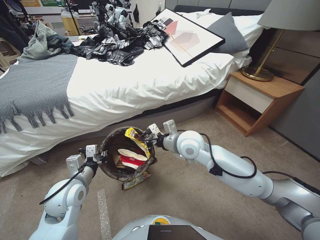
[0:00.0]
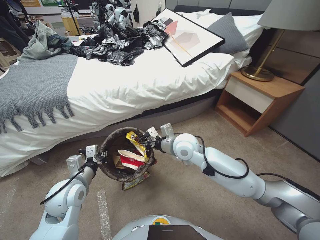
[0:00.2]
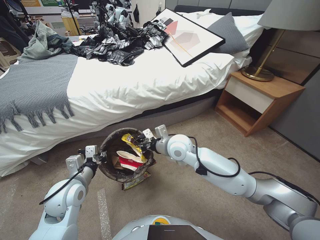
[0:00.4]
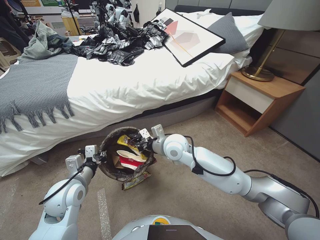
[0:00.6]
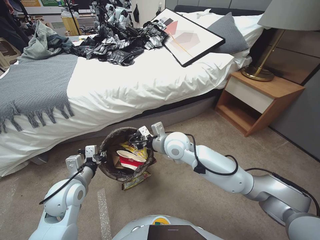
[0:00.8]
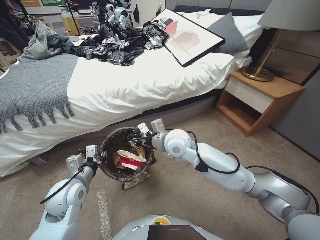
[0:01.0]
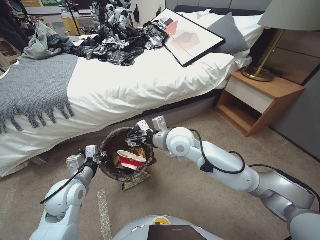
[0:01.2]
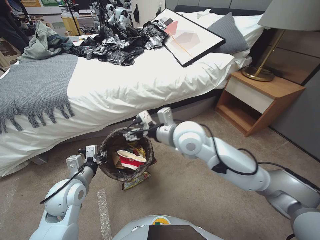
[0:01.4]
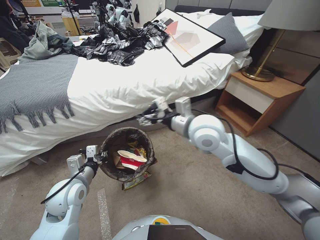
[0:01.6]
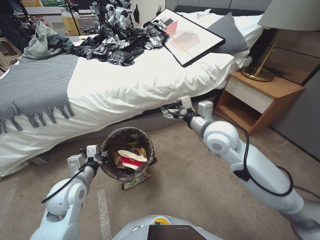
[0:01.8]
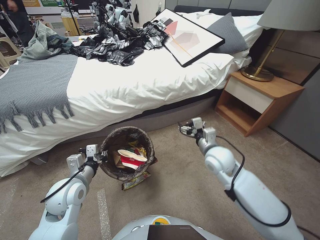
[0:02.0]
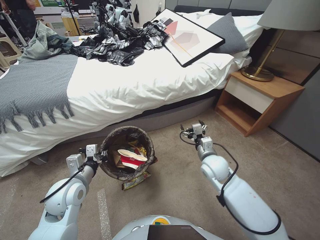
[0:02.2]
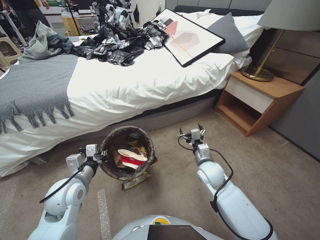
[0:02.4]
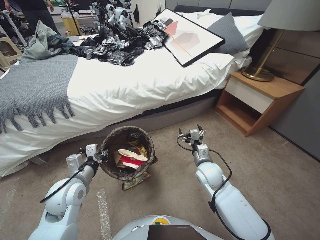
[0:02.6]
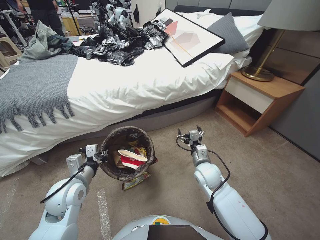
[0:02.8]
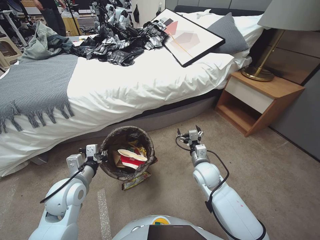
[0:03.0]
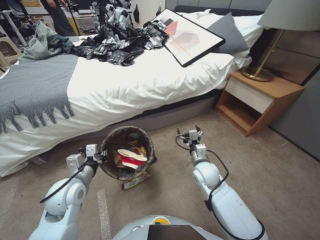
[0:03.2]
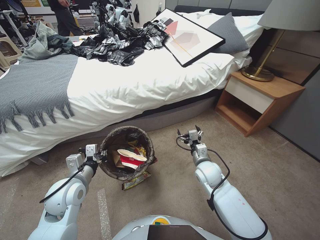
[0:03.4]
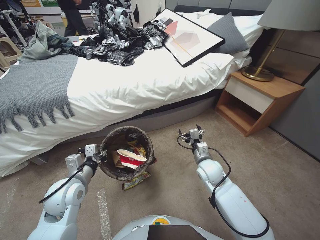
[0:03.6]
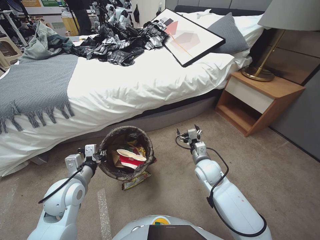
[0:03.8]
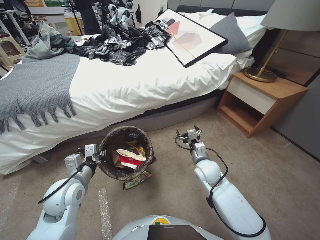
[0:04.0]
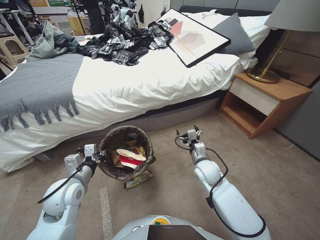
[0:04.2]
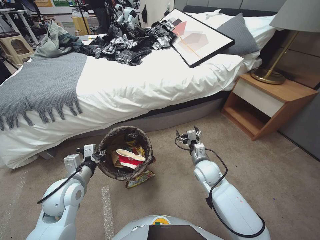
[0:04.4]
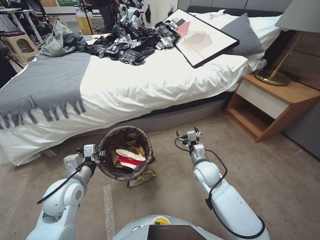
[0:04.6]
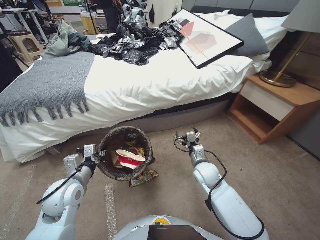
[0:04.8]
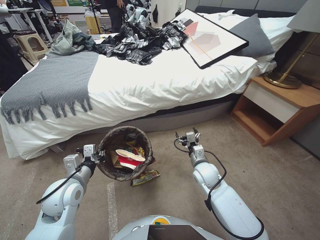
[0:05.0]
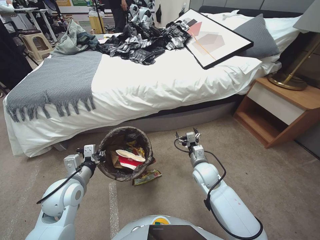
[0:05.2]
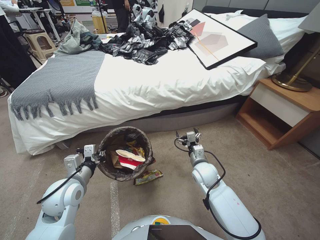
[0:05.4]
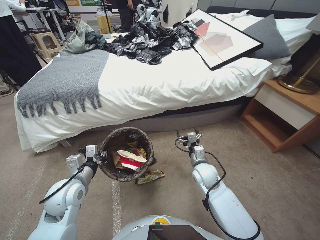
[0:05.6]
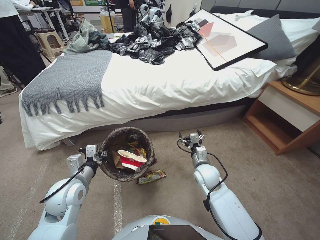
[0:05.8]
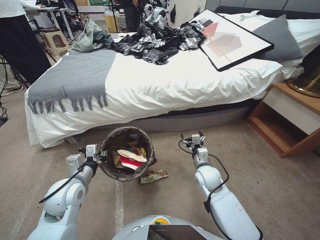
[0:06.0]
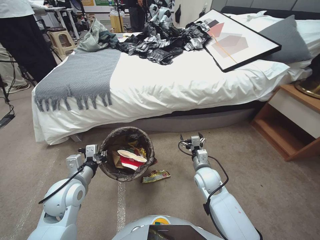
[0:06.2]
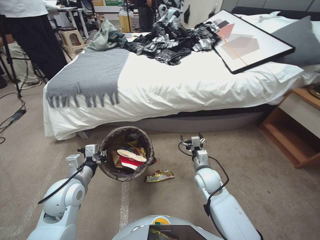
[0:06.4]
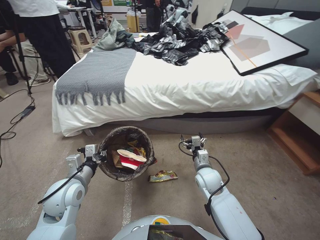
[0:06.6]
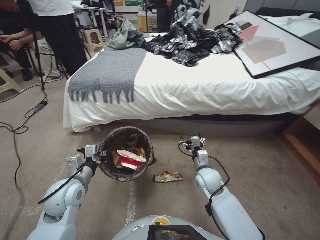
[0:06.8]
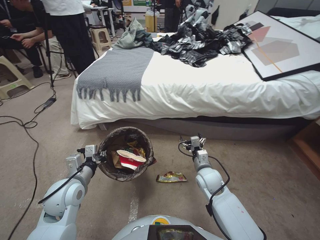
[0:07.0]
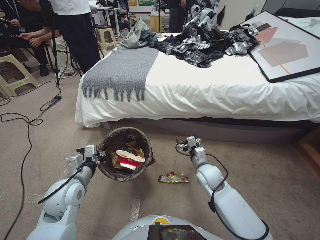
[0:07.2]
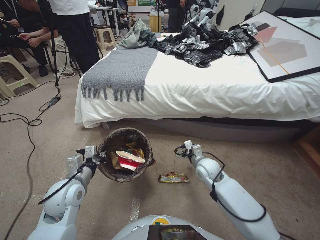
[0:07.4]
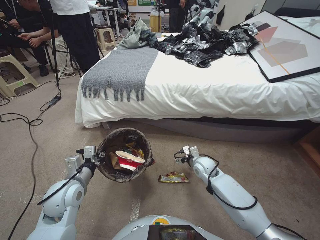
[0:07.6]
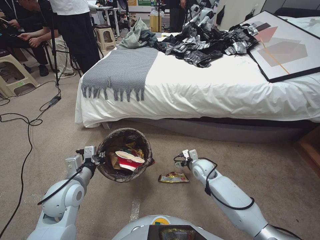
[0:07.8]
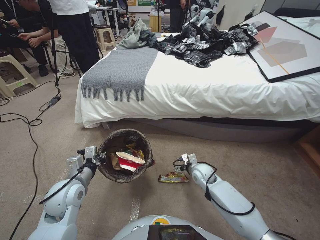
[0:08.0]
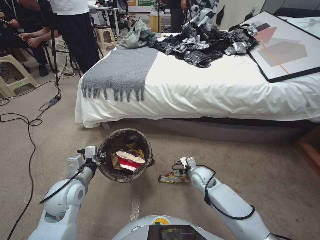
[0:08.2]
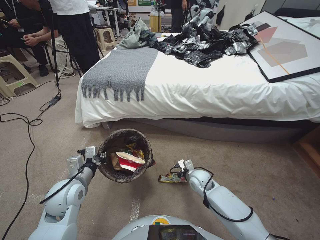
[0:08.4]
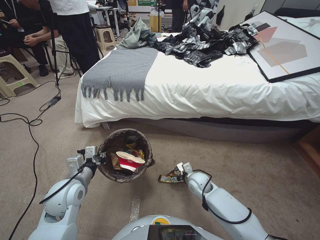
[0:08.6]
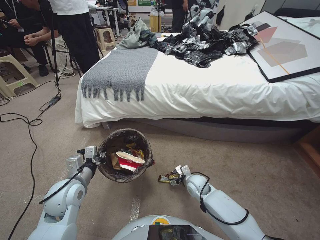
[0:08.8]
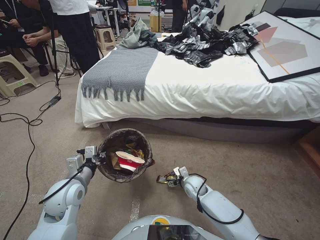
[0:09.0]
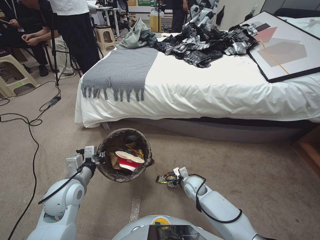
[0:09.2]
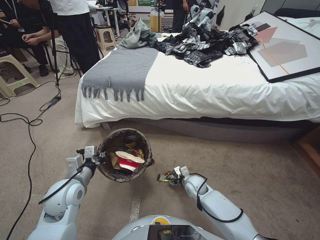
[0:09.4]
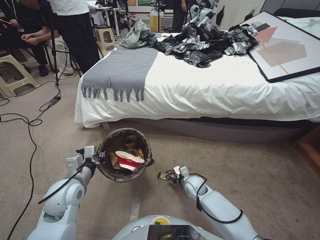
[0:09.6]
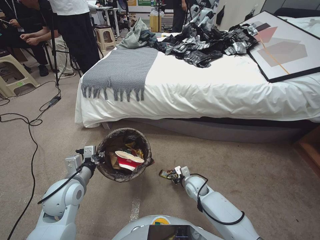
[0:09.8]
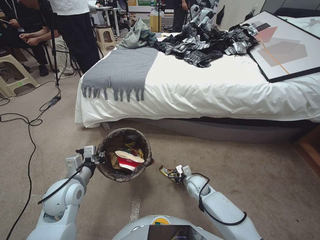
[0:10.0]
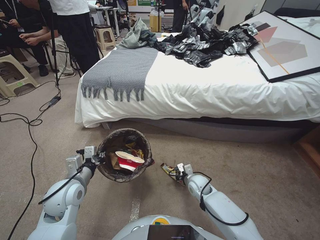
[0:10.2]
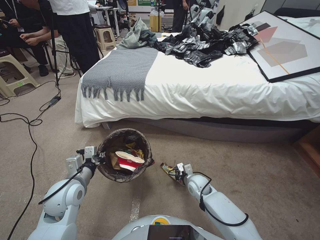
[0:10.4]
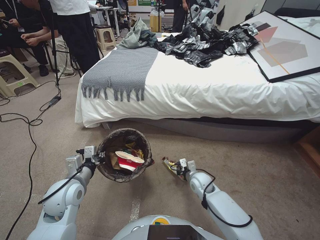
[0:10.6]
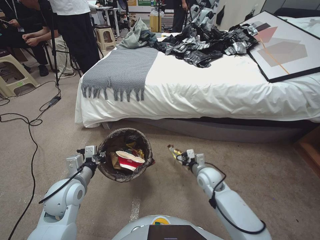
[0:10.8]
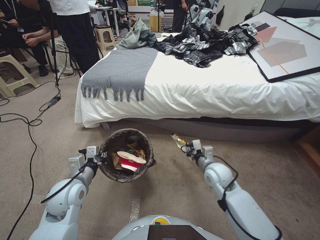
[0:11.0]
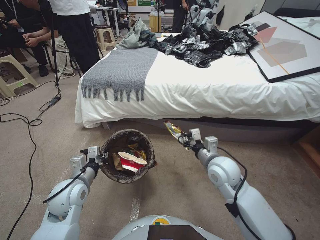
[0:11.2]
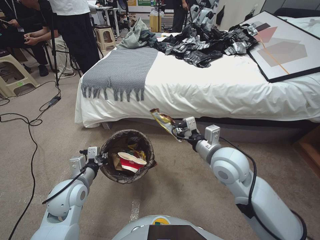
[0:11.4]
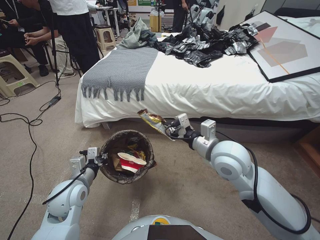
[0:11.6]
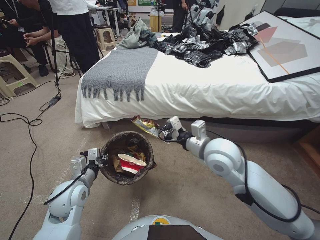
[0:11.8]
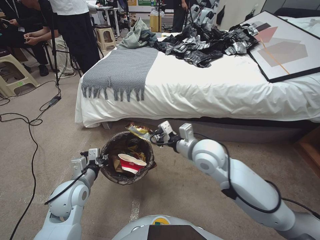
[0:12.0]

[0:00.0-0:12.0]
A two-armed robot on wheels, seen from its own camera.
Task of the whole recording: Pick up the trash bin, then pick up the garbage from the floor and place it into the trash bin.
0:00.0 to 0:01.6: The right gripper goes some 5 cm upward, and opens.
0:01.6 to 0:03.0: The right gripper heads downward, covering roughly 25 cm.
0:06.0 to 0:07.6: The right gripper changes place by some 5 cm.
0:07.6 to 0:09.0: The right gripper goes some 10 cm downward.
0:09.0 to 0:10.4: The right gripper closes up.
0:10.4 to 0:12.0: The right gripper is displaced upward by about 30 cm.

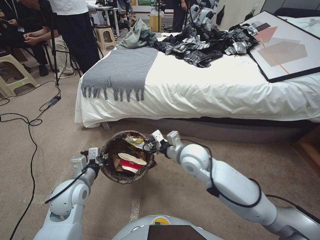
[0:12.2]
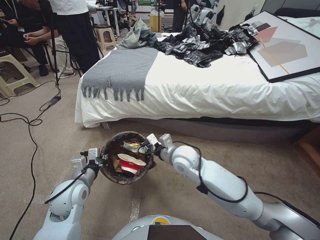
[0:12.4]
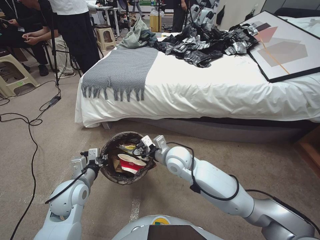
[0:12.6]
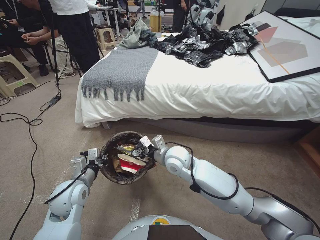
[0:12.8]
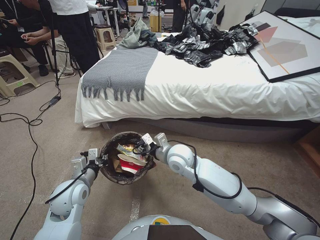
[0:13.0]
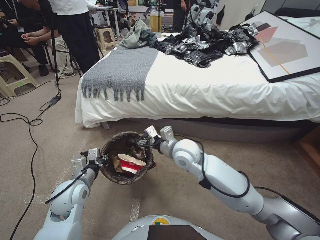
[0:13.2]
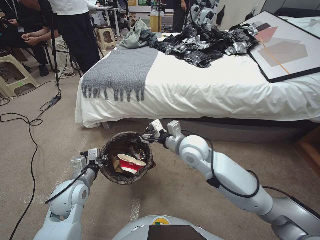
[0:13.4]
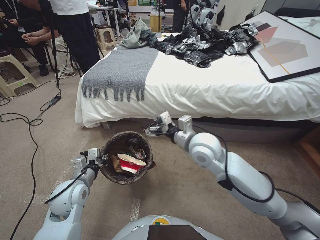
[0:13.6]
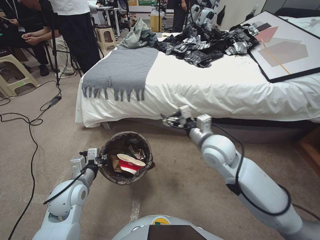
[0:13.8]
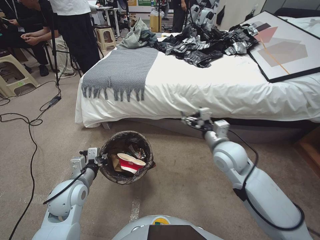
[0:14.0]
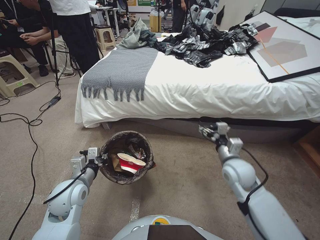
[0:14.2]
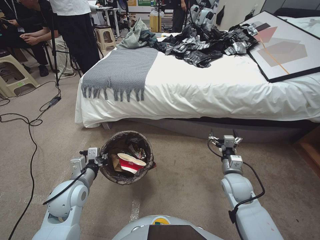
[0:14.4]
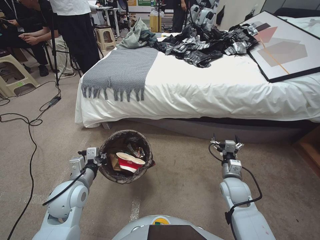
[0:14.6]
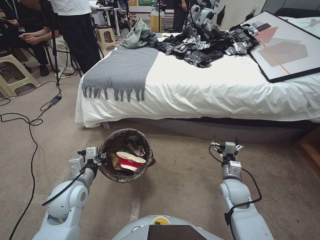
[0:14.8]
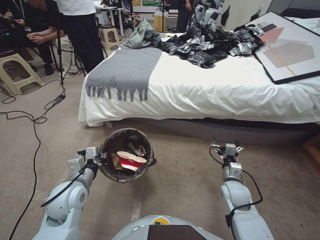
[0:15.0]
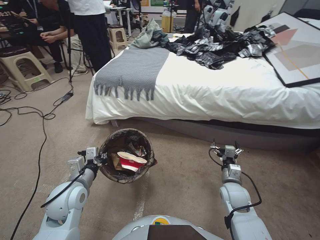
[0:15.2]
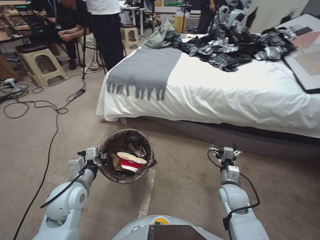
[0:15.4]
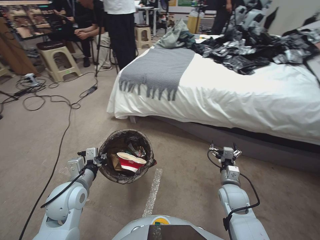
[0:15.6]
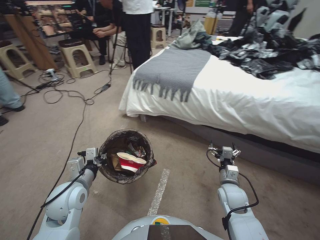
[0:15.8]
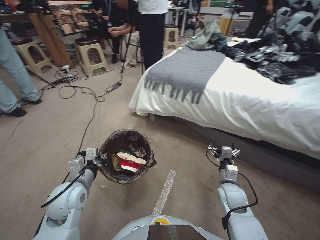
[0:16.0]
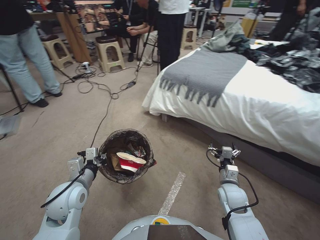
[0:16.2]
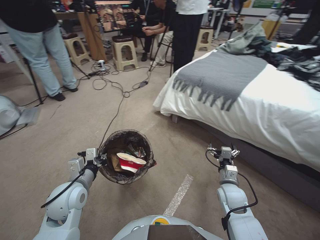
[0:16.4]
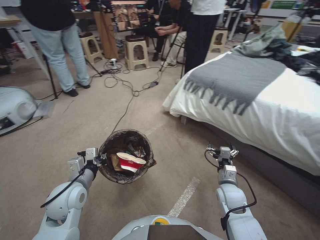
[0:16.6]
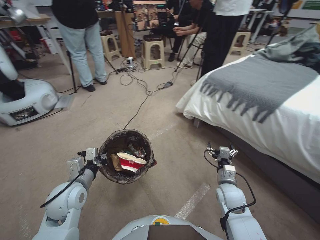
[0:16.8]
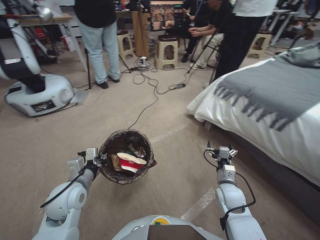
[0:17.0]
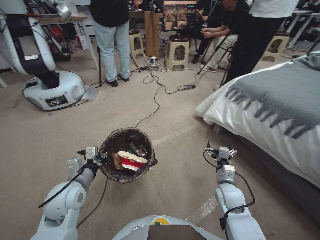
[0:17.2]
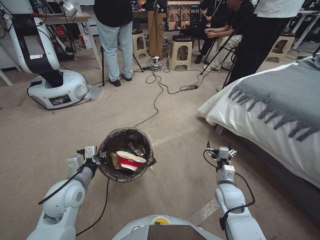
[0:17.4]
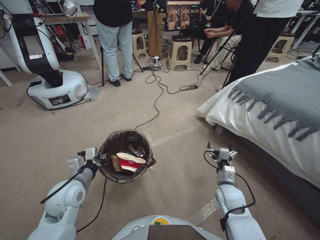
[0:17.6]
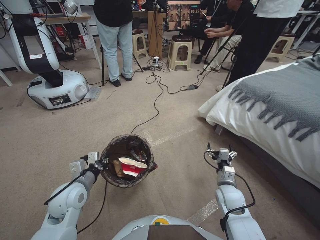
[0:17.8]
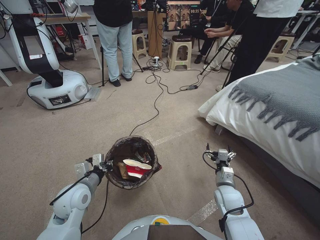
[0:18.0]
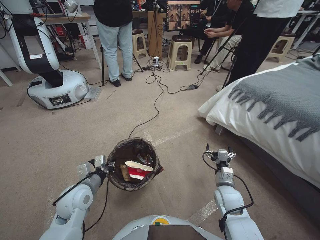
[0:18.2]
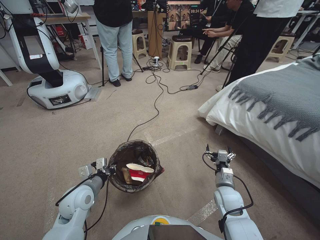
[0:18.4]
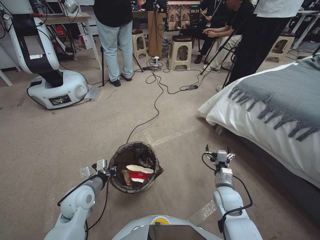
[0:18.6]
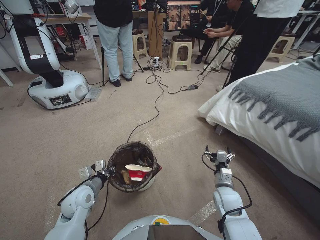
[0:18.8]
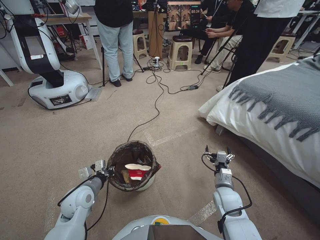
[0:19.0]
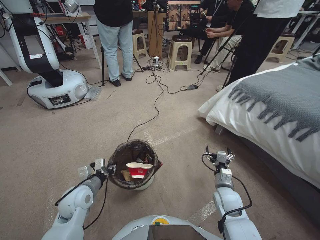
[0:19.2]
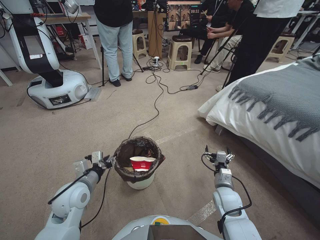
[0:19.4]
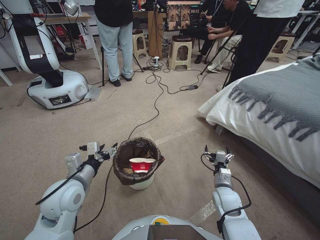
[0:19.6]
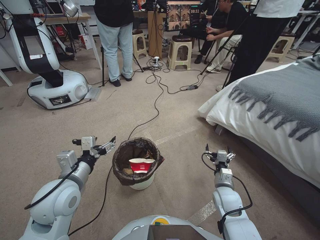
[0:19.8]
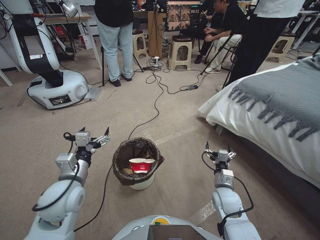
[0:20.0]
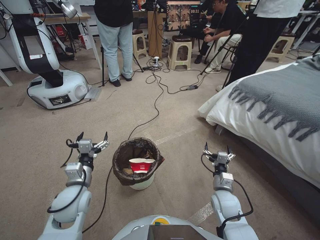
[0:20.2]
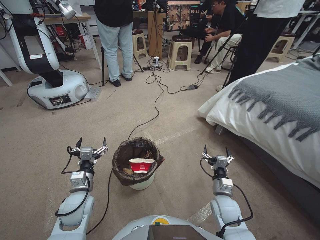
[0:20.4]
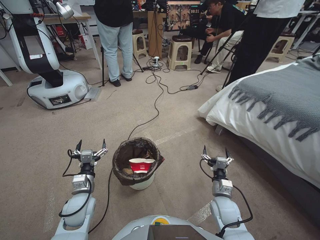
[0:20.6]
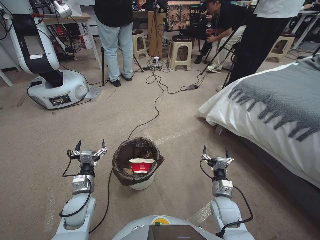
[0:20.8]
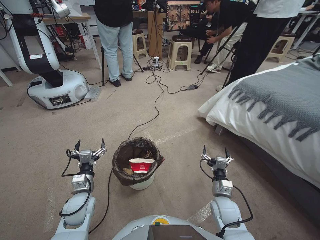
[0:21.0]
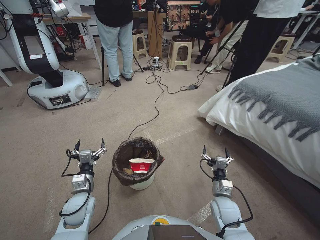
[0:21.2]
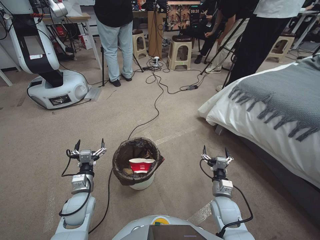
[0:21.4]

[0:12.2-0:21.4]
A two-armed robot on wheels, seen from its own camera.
Task of the whole recording: Pick up the trash bin, then pick up the garbage from the floor and place it into the trash bin.
0:12.2 to 0:13.8: The right gripper moves approximately 5 cm, and opens.
0:13.8 to 0:15.2: The right gripper shifts about 25 cm downward and to the right.
0:16.8 to 0:18.4: The left gripper heads downward, covering roughly 5 cm.
0:18.4 to 0:19.8: The left gripper goes approximately 10 cm upward, and opens its fingers.
0:19.8 to 0:21.4: The left gripper shifts some 15 cm downward.

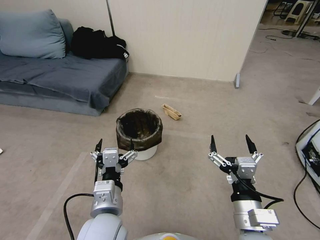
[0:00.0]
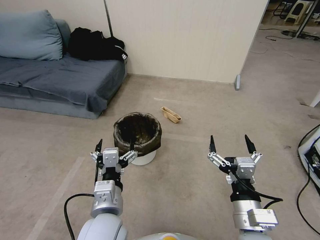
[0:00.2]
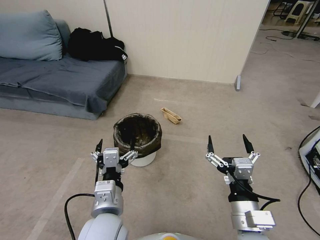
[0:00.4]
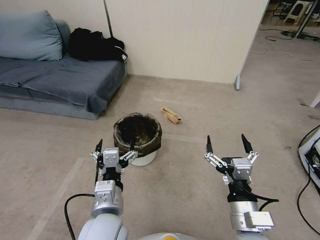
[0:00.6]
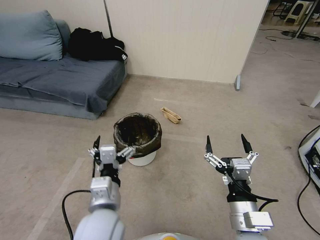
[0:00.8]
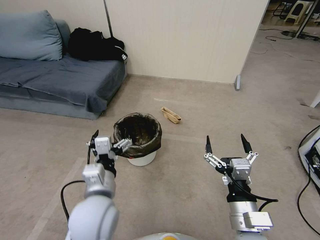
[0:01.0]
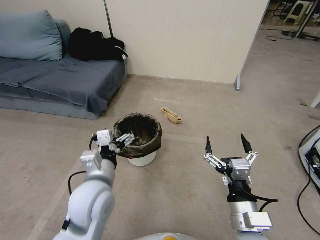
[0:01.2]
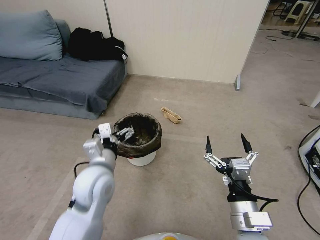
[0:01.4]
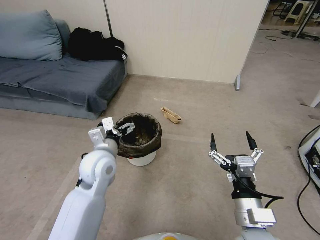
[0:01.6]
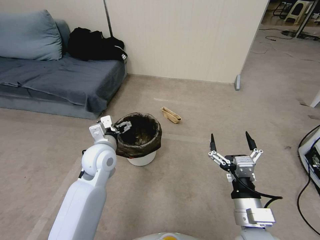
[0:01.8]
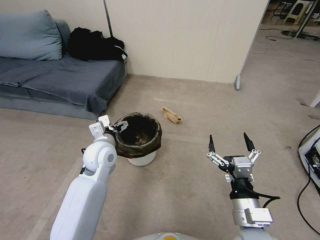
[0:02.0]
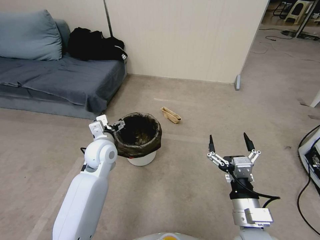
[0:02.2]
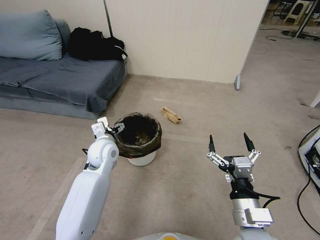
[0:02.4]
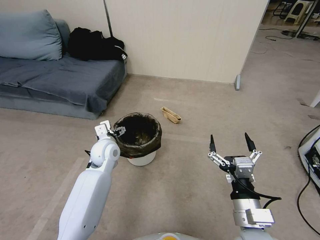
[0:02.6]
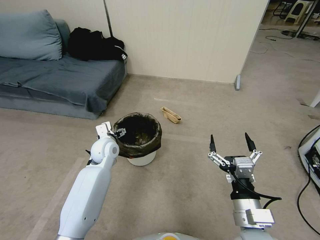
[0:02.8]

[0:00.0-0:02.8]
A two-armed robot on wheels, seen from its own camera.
Task of the whole recording: Pick up the trash bin, then pick up the garbage from the floor and place it into the trash bin.
0:00.0 to 0:01.4: The left gripper travels forward and to the left by about 10 cm.
0:01.4 to 0:02.8: The left gripper moves forward and downward, roughly 15 cm.
